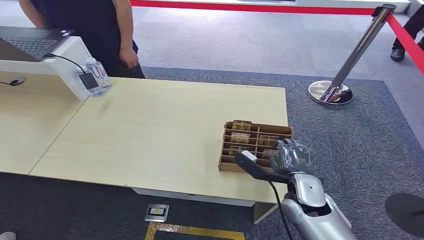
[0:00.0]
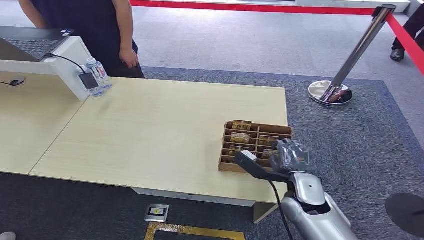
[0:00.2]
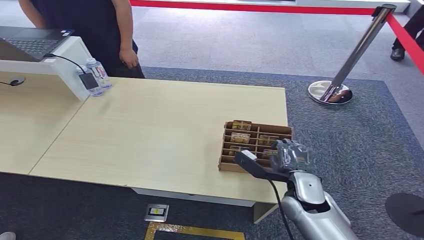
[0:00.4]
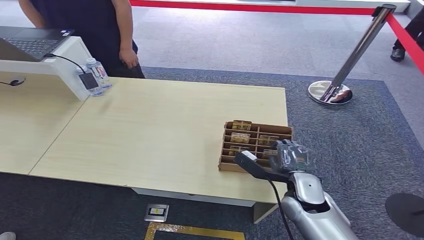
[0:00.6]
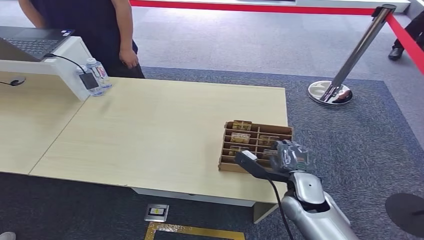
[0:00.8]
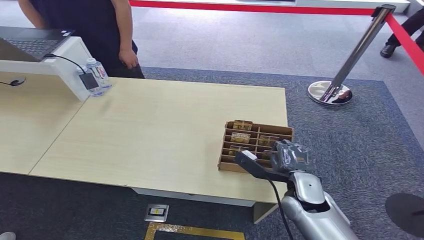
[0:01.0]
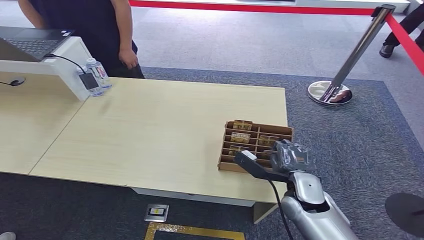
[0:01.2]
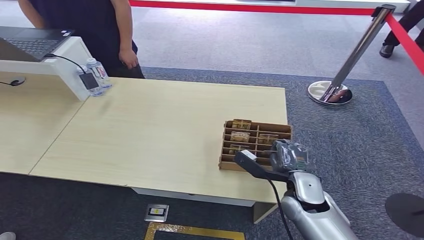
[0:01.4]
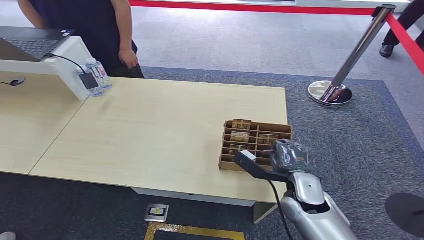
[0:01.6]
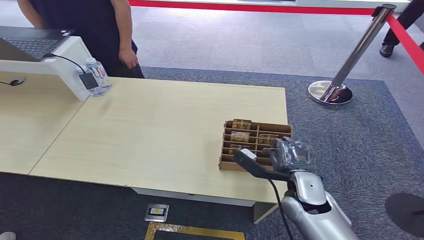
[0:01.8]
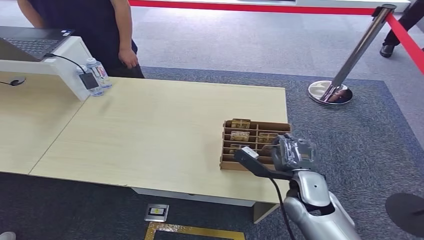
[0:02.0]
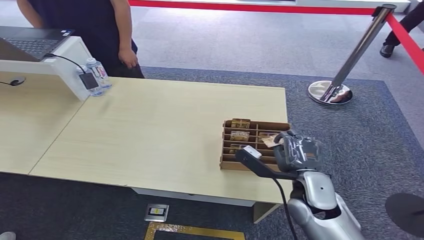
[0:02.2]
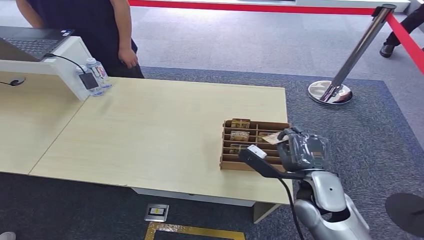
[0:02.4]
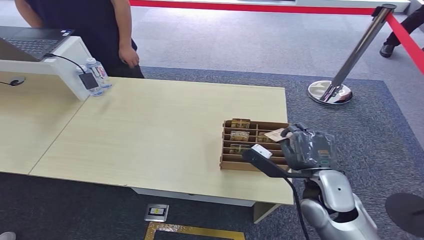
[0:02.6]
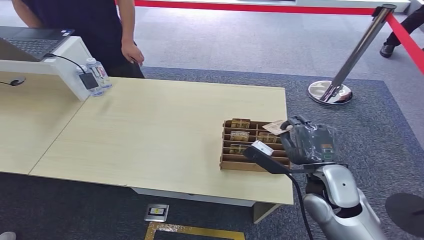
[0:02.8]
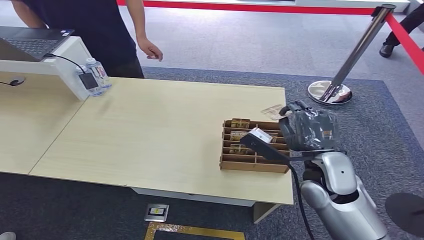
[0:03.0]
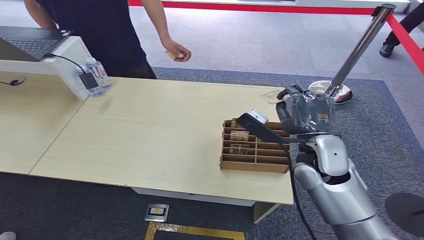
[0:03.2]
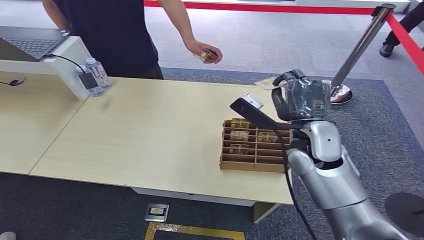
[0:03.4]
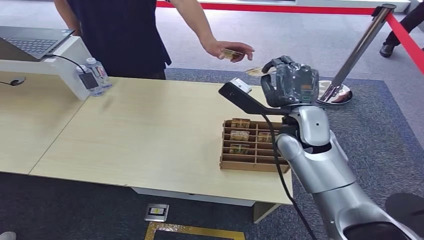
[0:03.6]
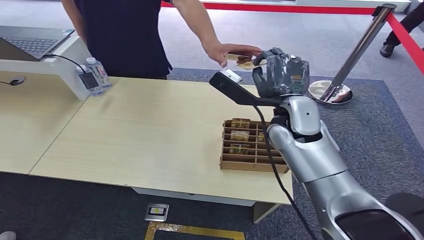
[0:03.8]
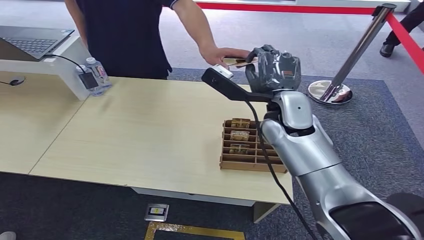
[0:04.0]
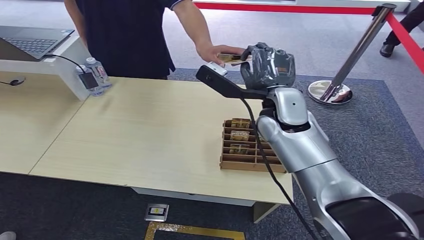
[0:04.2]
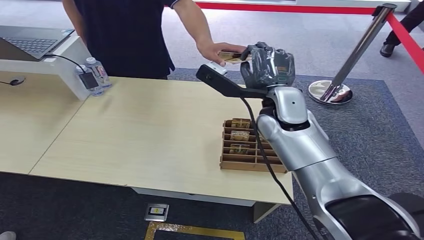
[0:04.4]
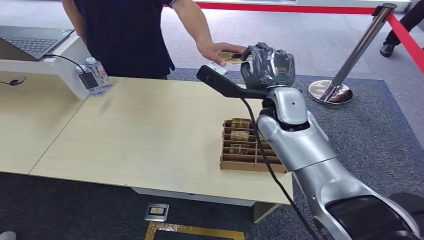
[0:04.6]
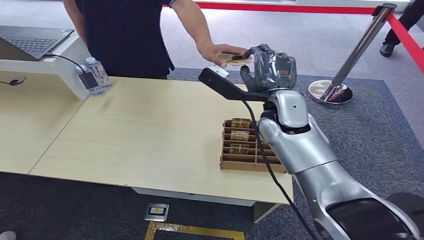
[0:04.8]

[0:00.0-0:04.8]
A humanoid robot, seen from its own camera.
Step, 0.0 to 2.2 s: Pick up the room card from the card holder.
Step, 2.4 to 4.8 s: Hand the room card to the target.
1.6 to 3.2 s: The right hand travels upward by approximately 15 cm.

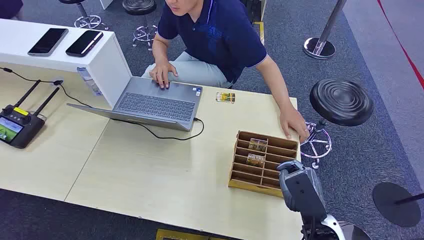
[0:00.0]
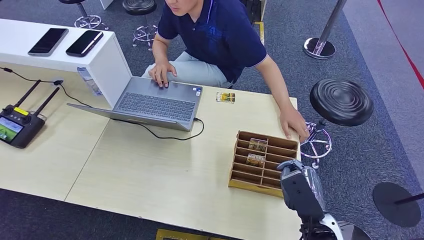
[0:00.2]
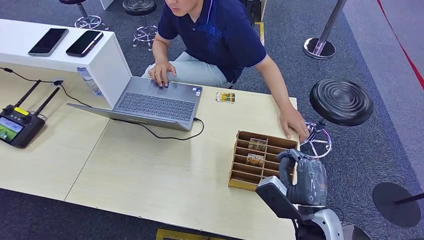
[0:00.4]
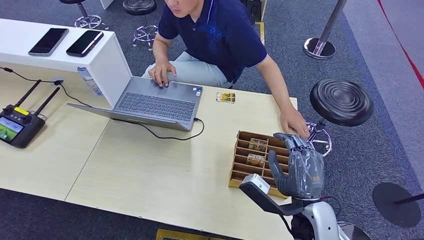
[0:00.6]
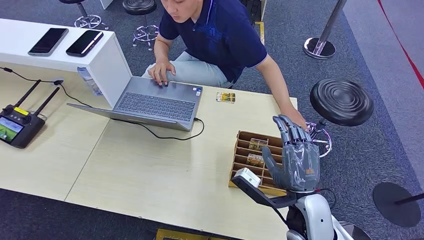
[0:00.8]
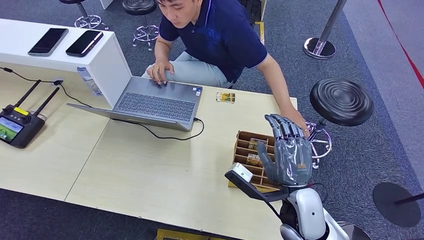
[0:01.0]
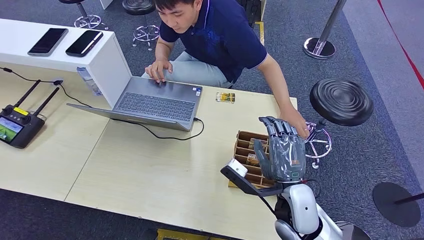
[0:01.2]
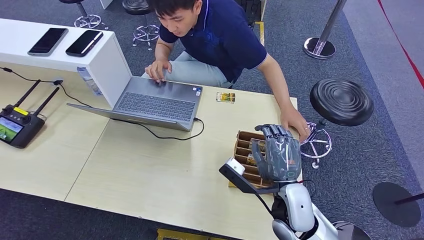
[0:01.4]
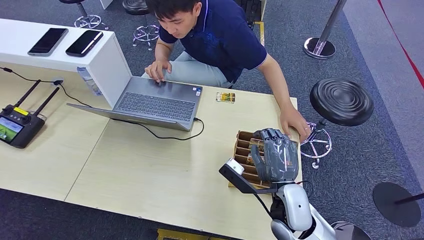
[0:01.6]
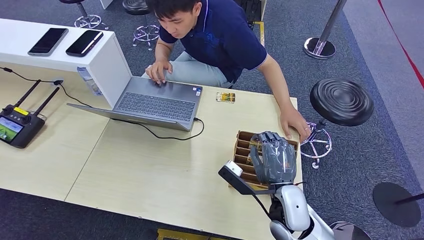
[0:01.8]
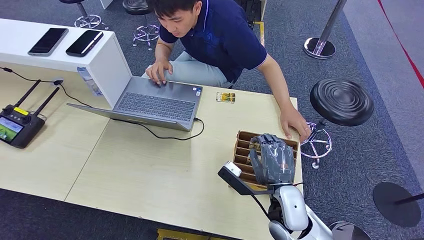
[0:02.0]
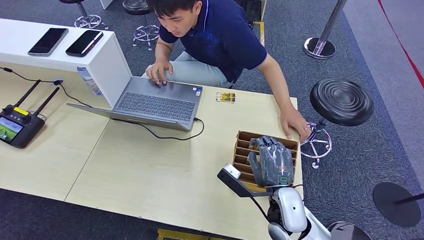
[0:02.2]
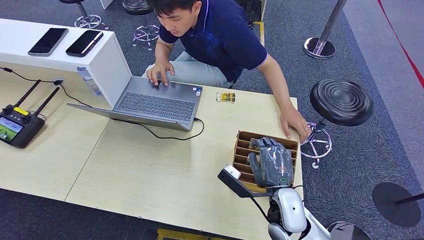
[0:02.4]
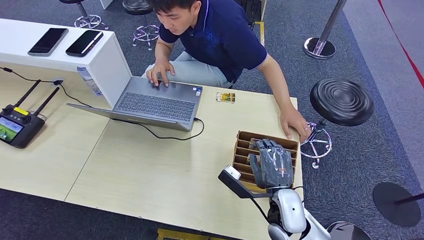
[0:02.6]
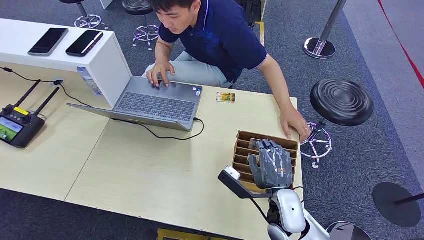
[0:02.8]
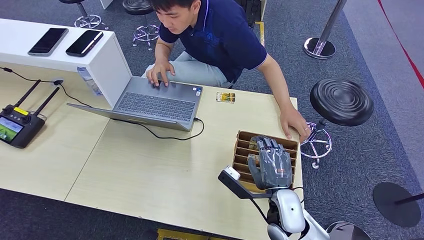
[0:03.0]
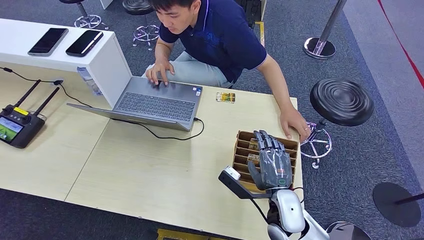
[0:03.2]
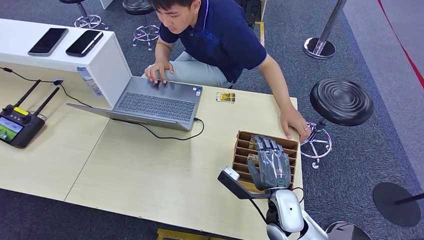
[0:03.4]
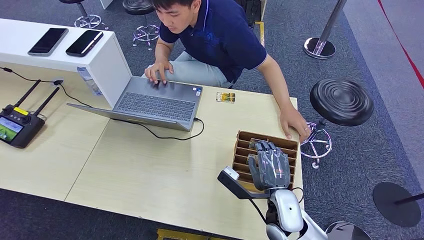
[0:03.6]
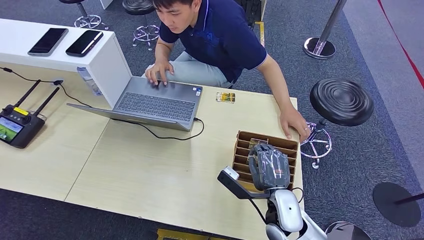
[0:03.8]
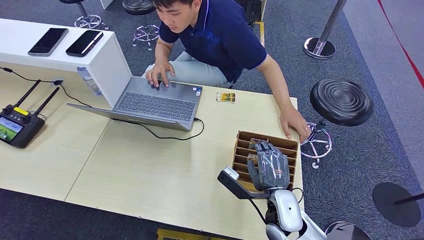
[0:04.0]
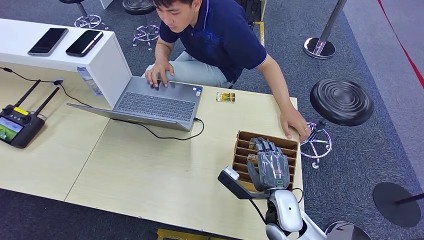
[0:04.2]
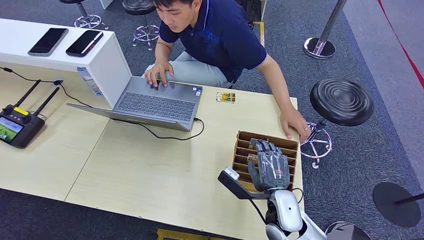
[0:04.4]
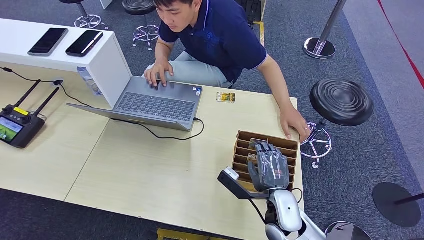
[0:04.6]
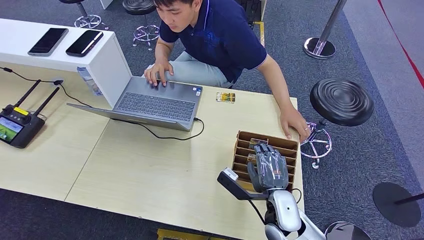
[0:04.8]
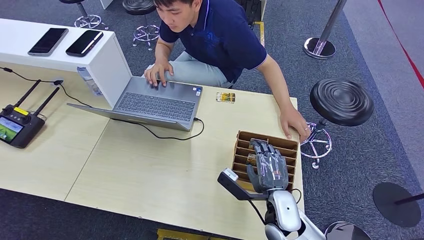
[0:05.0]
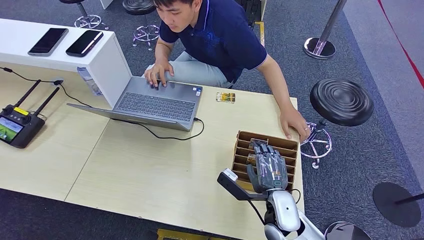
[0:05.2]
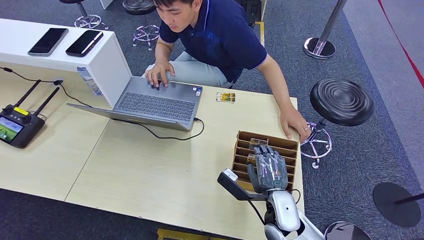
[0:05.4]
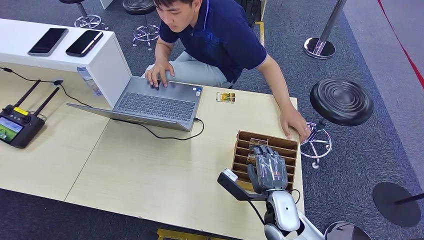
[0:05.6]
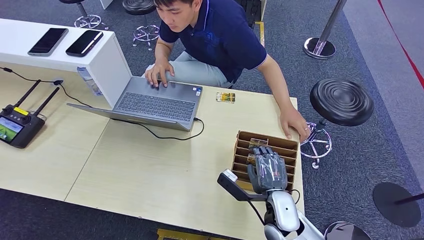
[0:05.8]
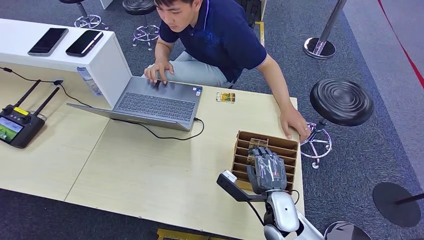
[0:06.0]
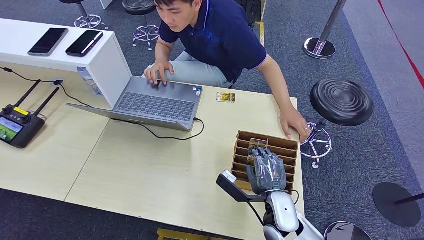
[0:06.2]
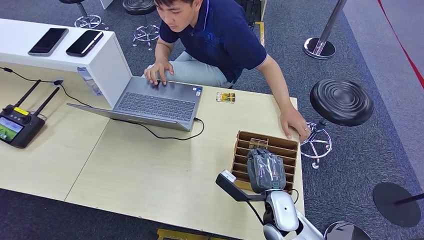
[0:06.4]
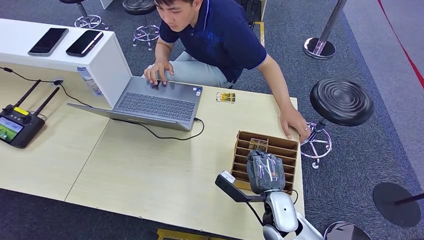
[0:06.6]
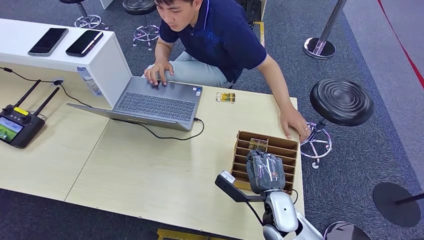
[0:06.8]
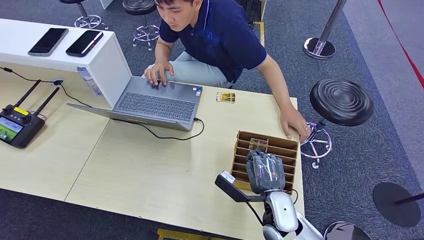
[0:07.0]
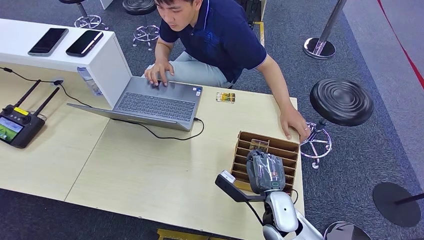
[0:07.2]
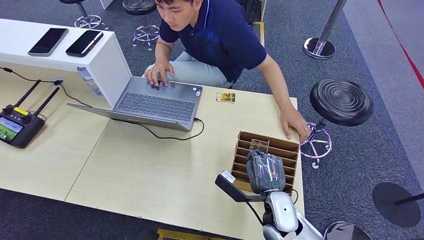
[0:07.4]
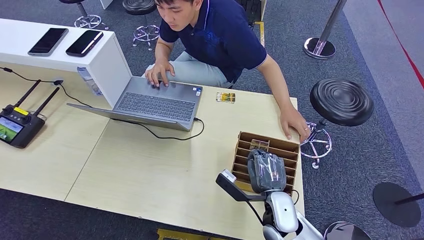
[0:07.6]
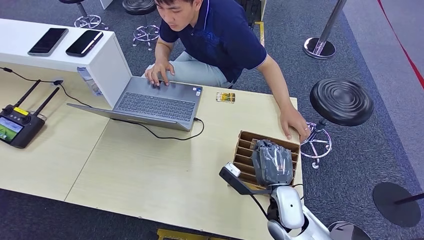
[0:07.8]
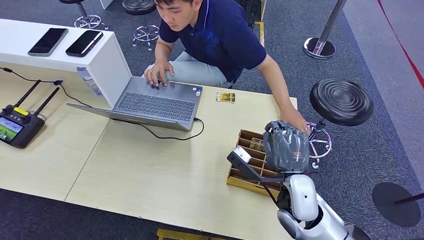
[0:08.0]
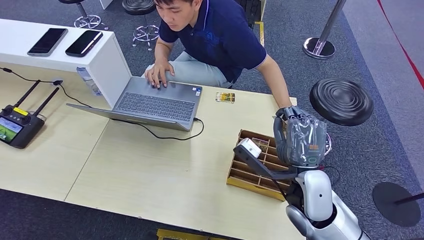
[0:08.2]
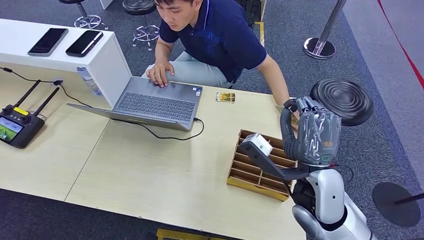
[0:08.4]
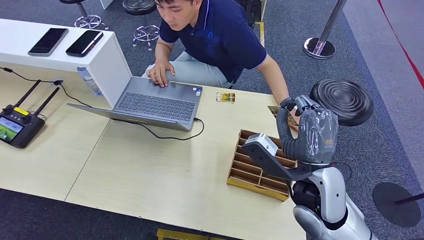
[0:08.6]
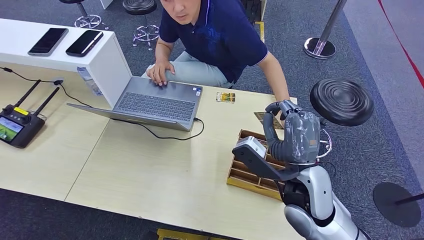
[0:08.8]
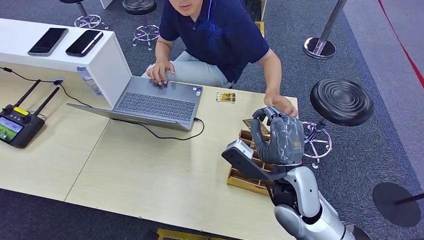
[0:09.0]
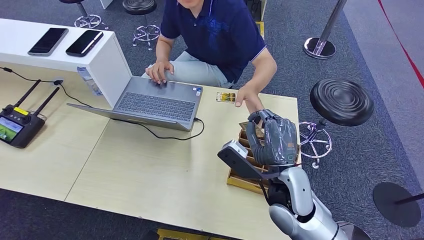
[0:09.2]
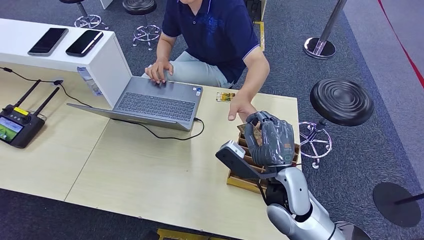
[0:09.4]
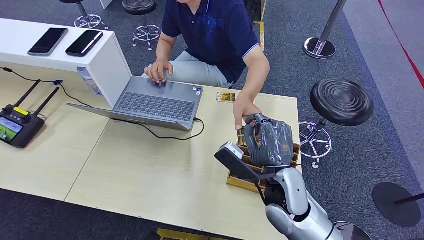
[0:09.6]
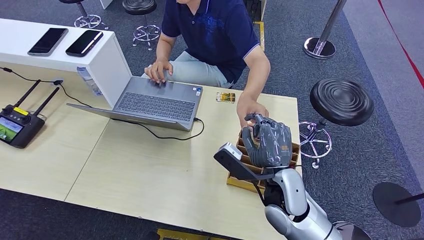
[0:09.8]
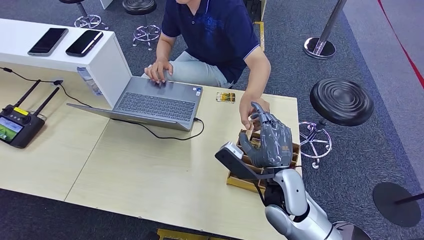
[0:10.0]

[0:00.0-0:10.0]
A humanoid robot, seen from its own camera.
Step, 0.0 to 9.0 s: Pick up the room card from the card holder.
Step, 9.2 to 10.0 s: Hand the room card to the target.
1.4 to 2.8 s: The hands move only a little.
2.8 to 4.2 s: The two hands keep their place.
4.2 to 5.8 s: The two hands keep their place.
5.8 to 7.2 s: Neither hand changes place.
7.2 to 8.6 s: The right hand travels upward by some 15 cm.
8.6 to 10.0 s: The right hand heads downward, covering about 5 cm.

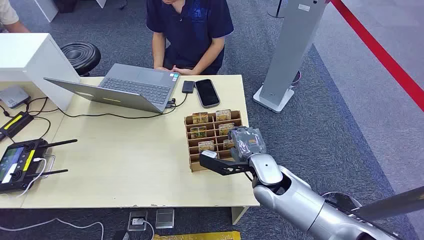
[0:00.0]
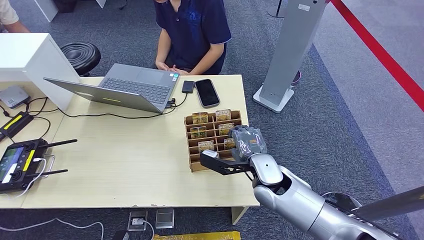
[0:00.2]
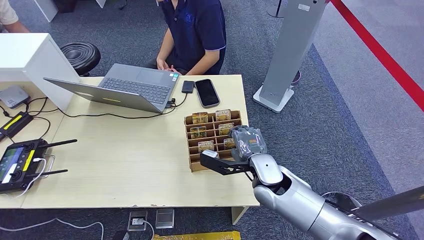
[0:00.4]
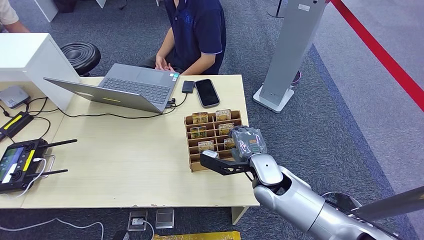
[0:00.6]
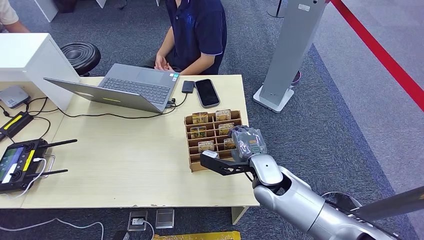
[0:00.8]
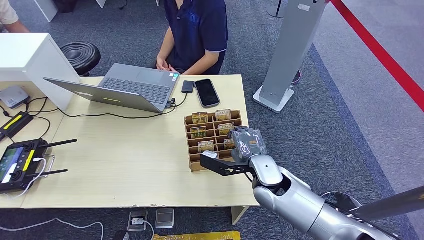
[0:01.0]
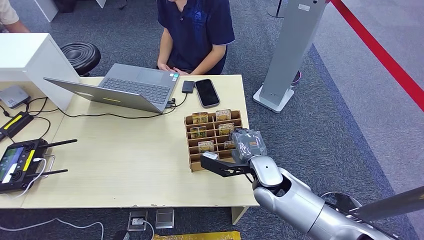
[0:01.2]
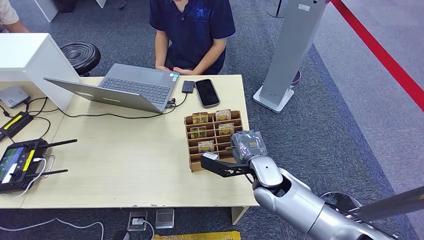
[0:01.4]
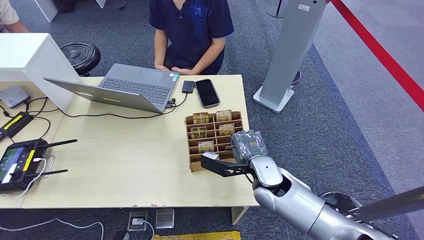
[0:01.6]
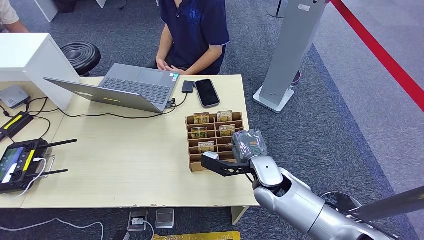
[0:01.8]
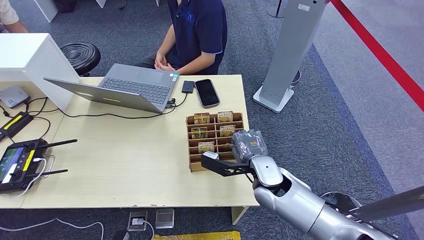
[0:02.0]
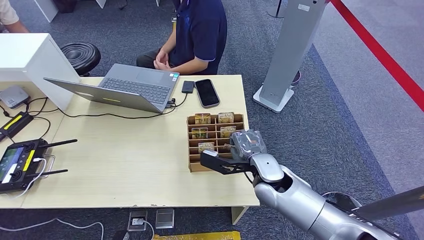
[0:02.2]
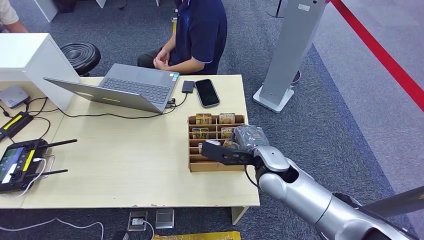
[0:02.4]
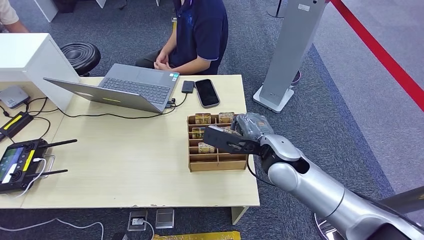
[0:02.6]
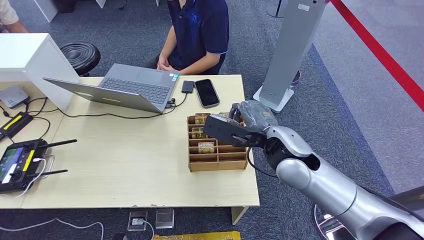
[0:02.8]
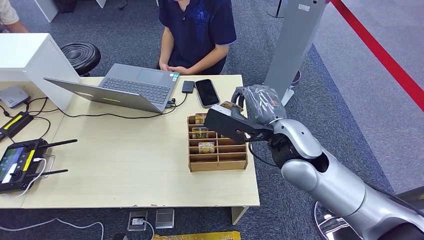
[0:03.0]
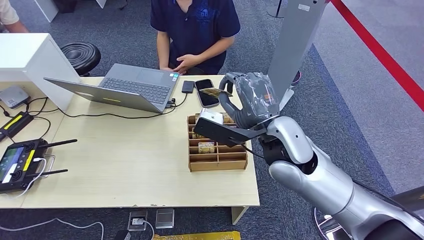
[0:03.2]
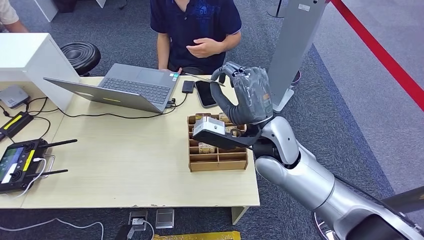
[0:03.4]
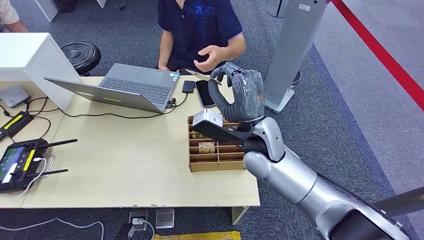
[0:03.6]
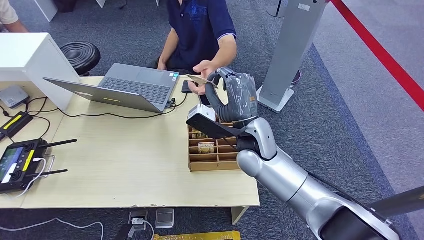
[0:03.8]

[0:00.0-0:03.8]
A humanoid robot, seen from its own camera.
Step, 0.0 to 2.6 s: Pick up the room card from the card holder.
1.2 to 2.6 s: The right hand moves upward, about 10 cm.
2.6 to 3.8 s: The right hand shifts about 5 cm to the left.
